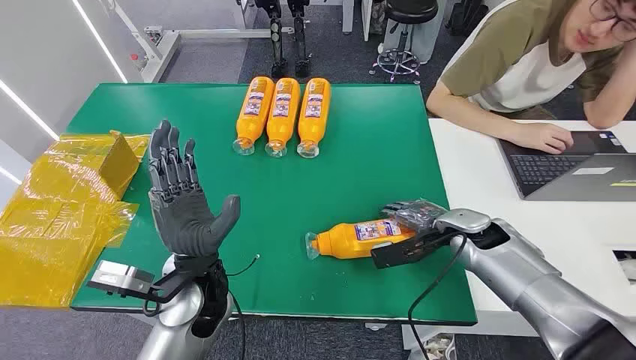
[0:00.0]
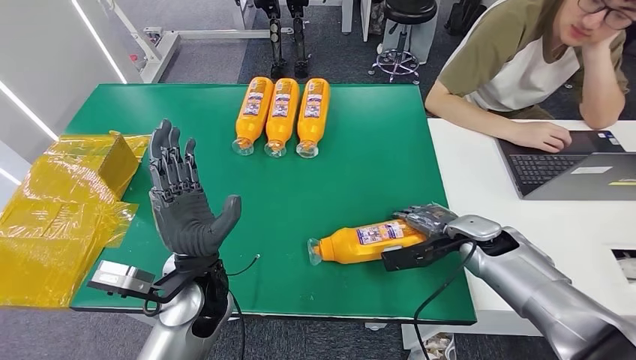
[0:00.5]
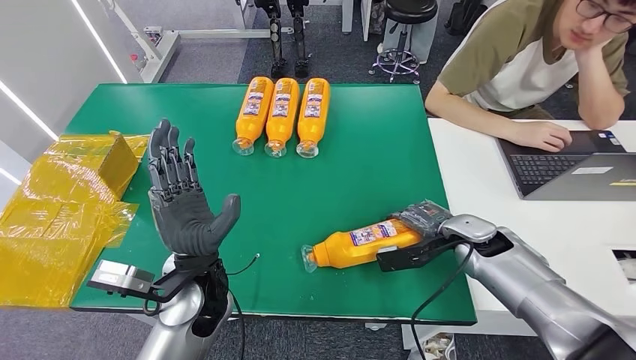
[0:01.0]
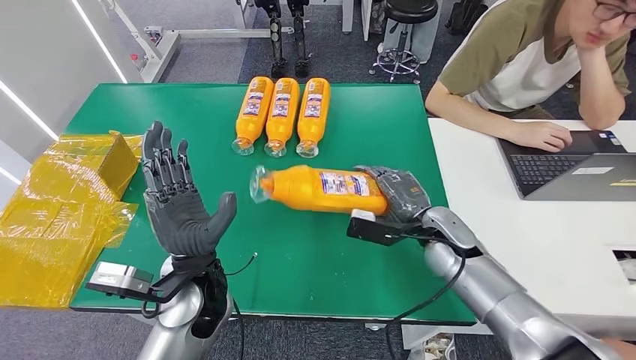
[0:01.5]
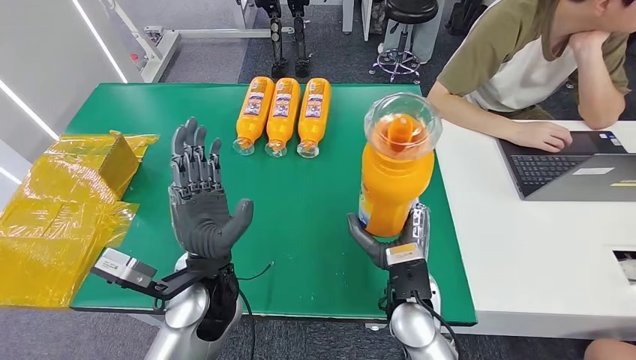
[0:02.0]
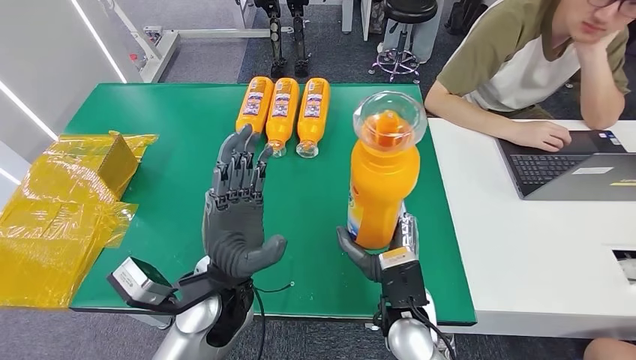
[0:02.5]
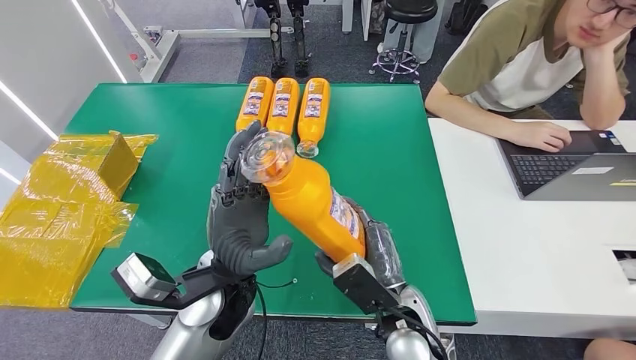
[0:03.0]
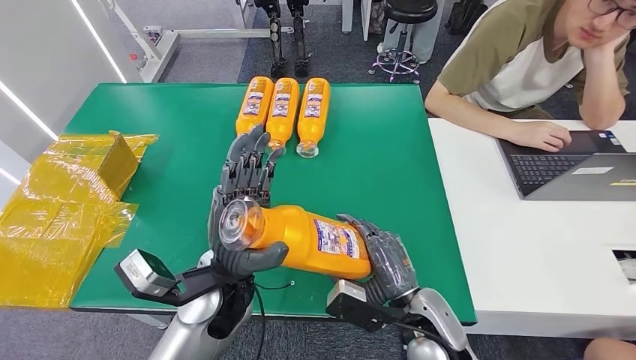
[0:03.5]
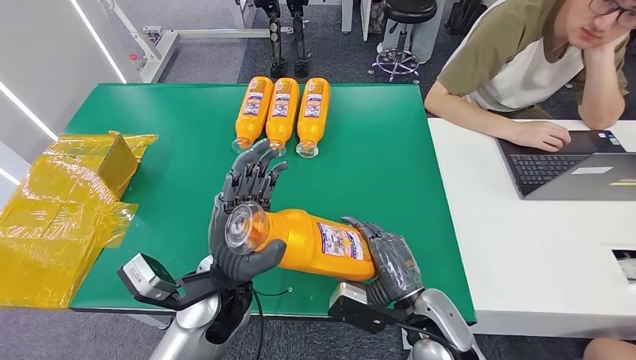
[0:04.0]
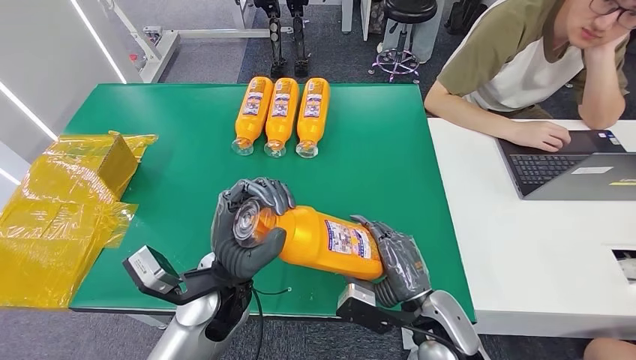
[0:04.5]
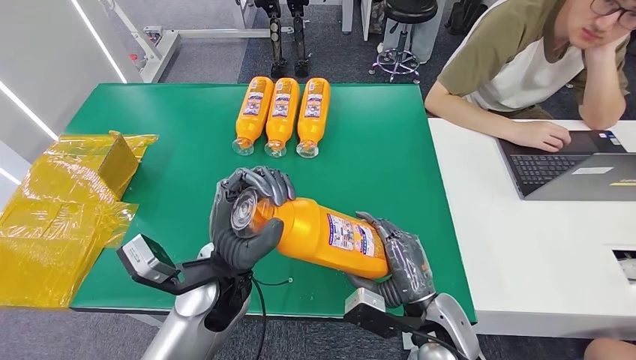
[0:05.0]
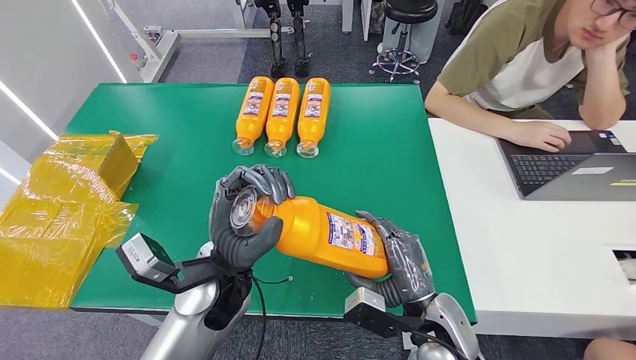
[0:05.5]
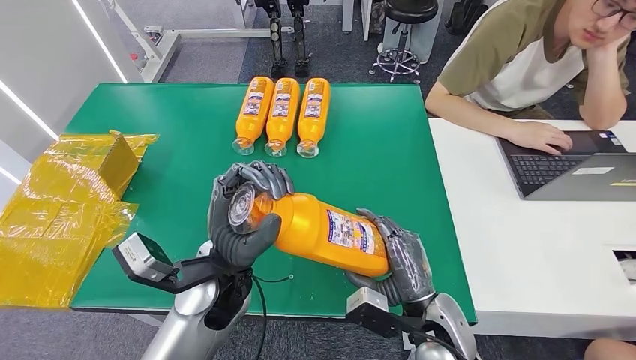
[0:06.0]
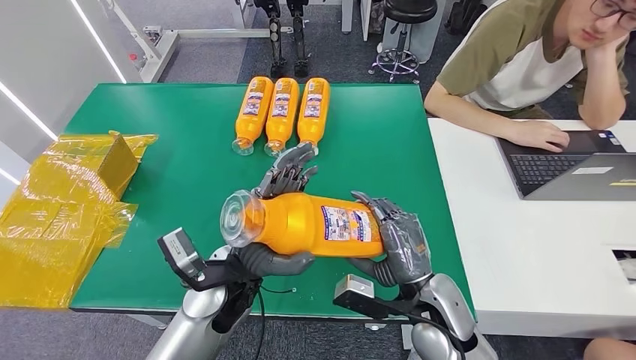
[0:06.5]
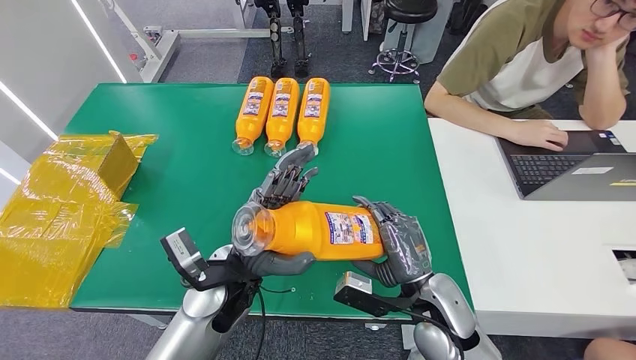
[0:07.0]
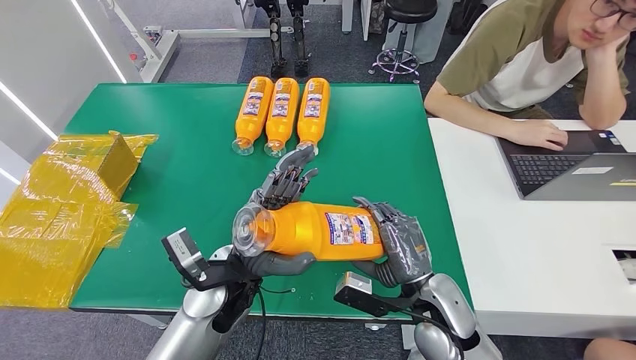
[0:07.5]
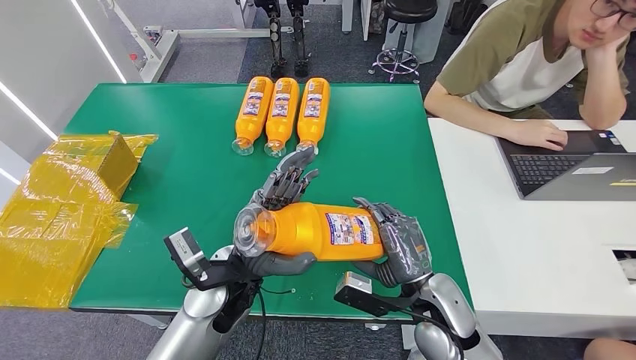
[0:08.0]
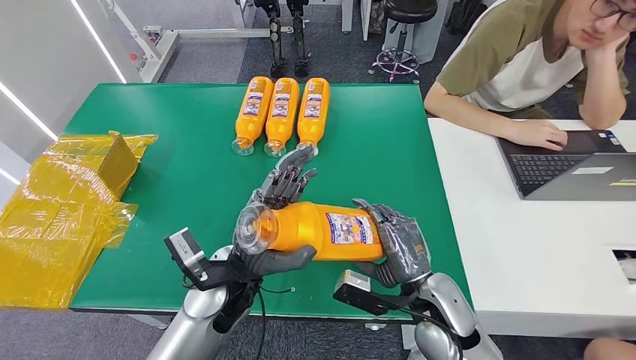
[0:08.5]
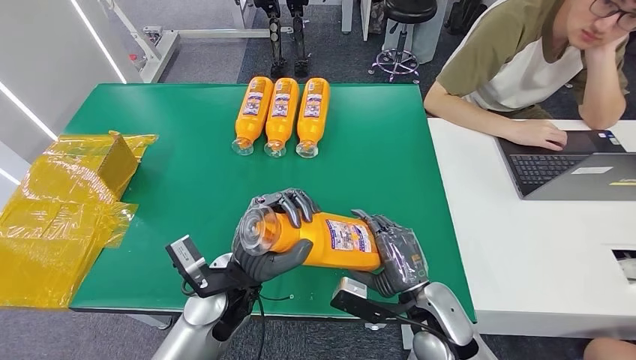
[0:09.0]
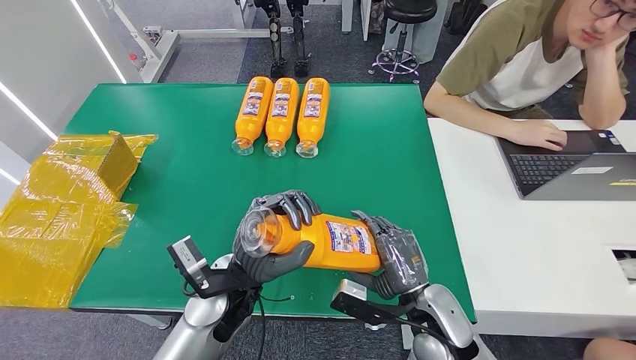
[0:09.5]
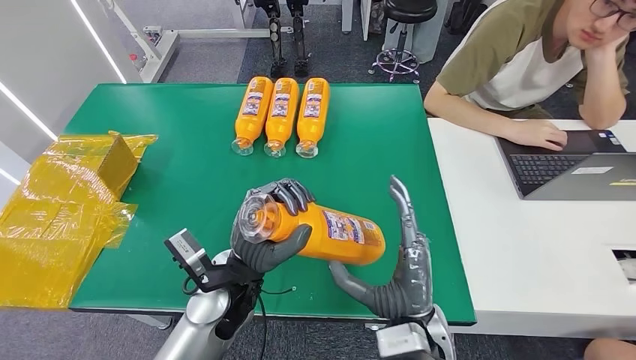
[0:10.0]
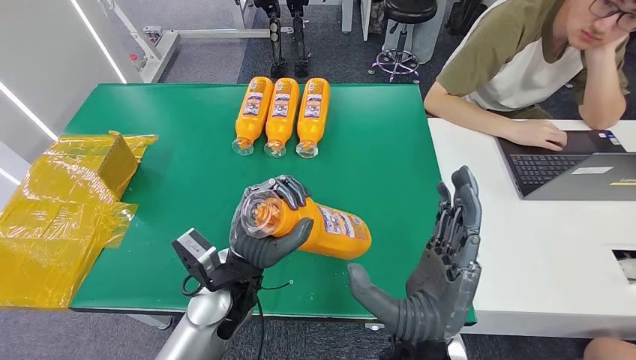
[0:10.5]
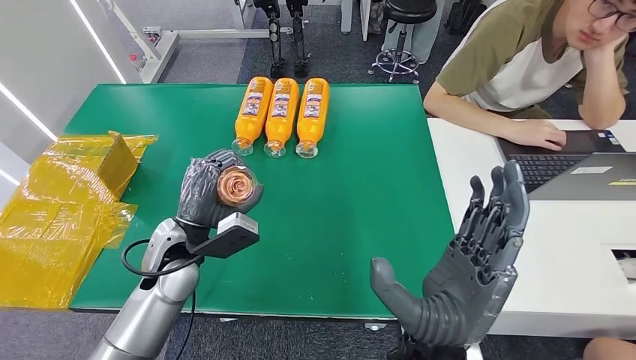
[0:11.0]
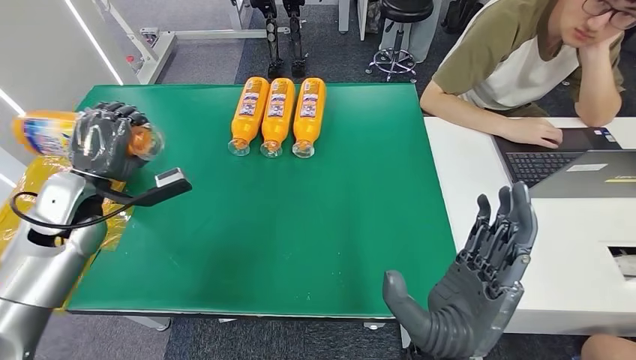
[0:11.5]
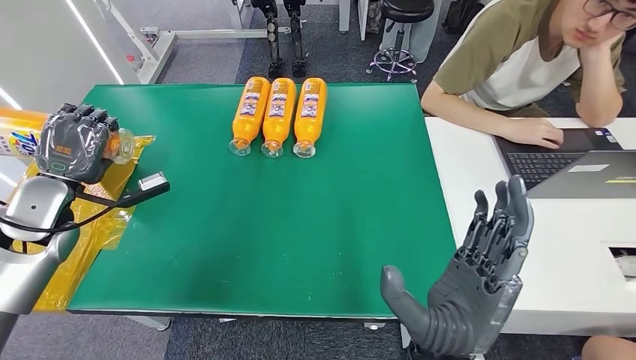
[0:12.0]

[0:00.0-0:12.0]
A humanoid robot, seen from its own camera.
Step, 0:00.0 to 0:04.5: Pick up the bottle from the table.
0:02.0 to 0:04.0: The right hand ends up roughly 5 cm from where it was.
0:04.0 to 0:08.0: The hands make only small movements.
0:08.0 to 0:10.0: The right hand shifts approximately 5 cm to the left and backward.

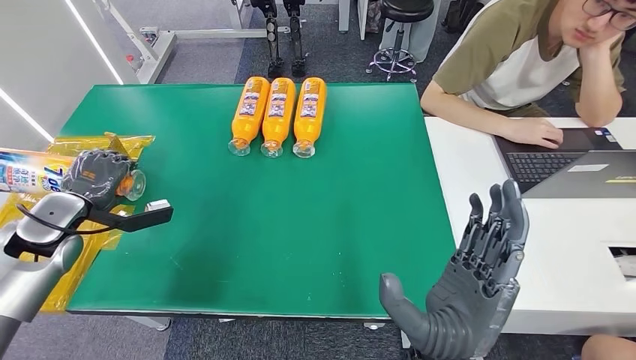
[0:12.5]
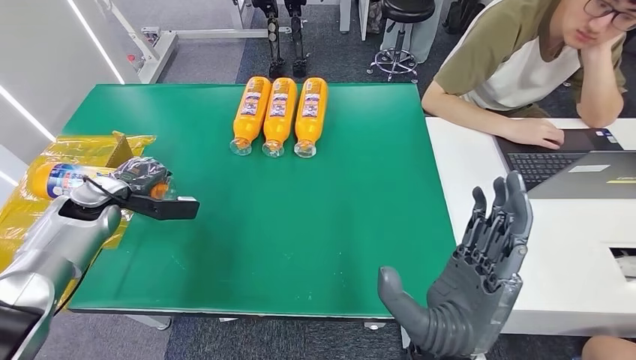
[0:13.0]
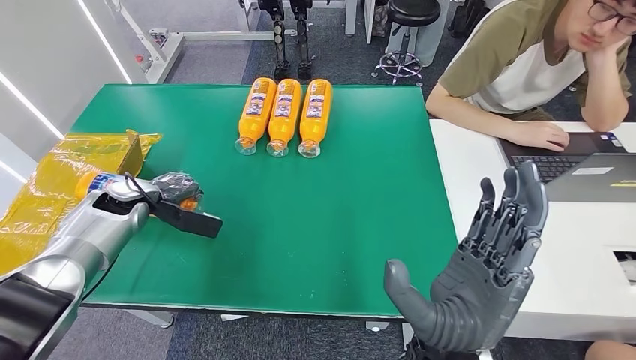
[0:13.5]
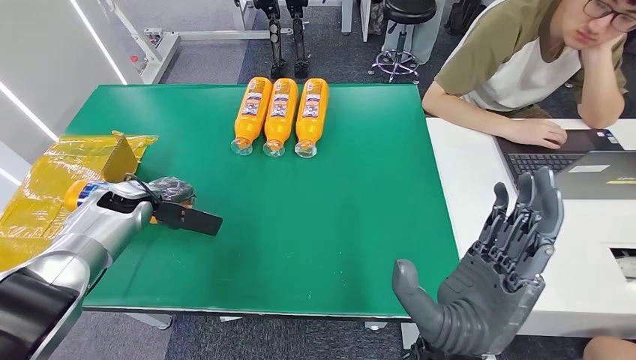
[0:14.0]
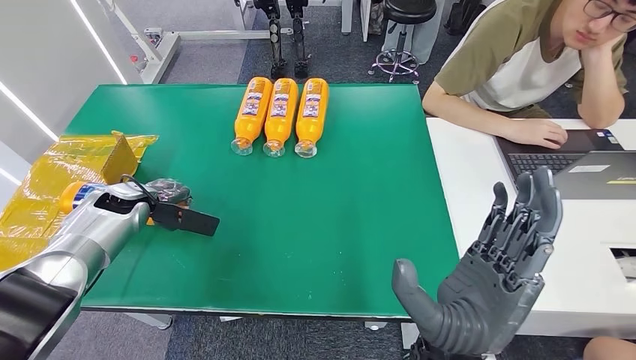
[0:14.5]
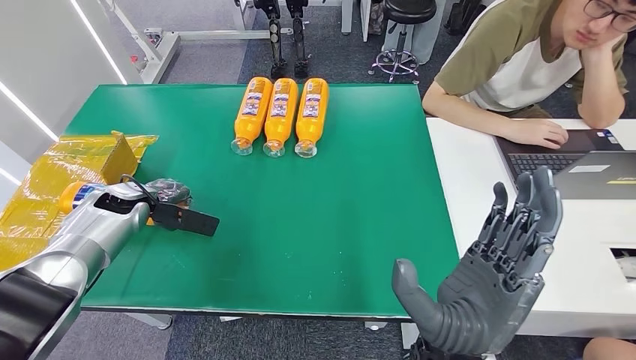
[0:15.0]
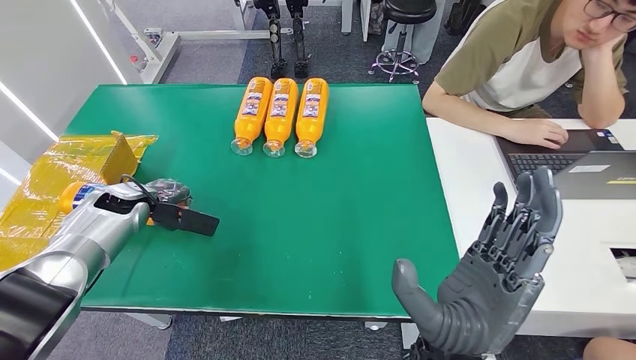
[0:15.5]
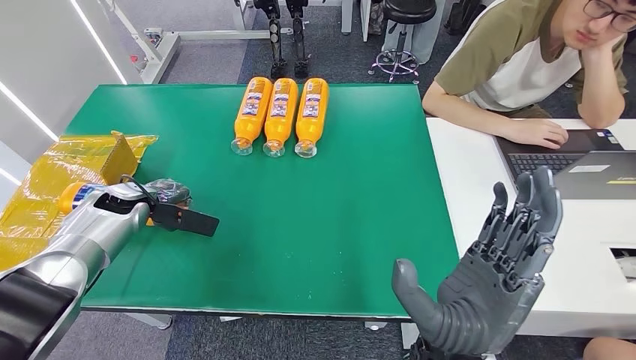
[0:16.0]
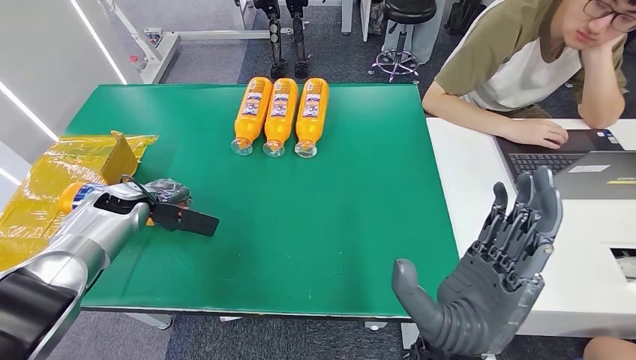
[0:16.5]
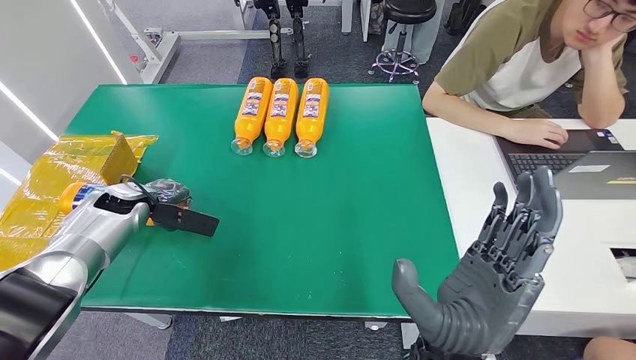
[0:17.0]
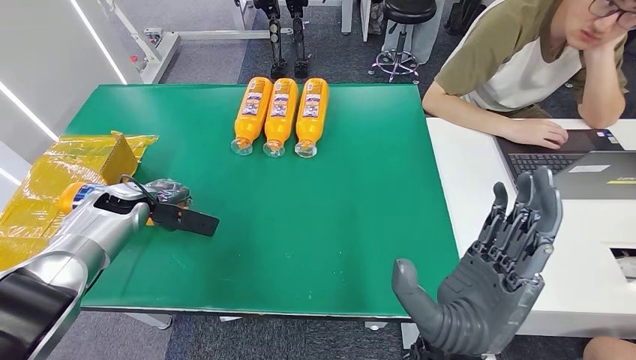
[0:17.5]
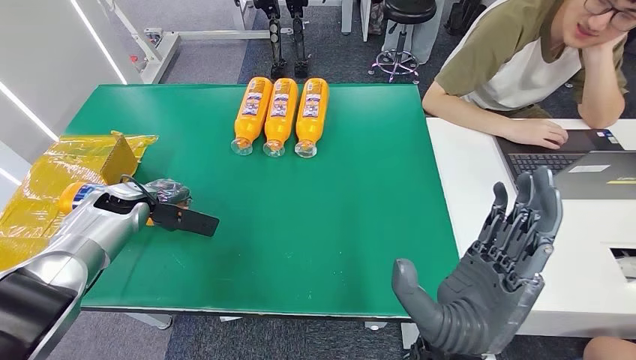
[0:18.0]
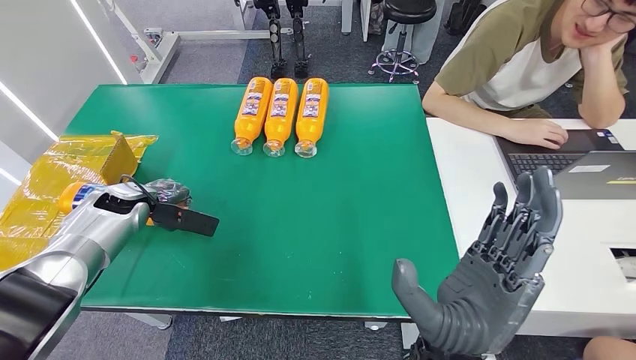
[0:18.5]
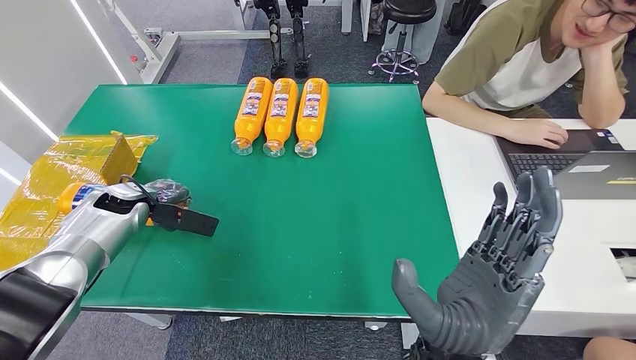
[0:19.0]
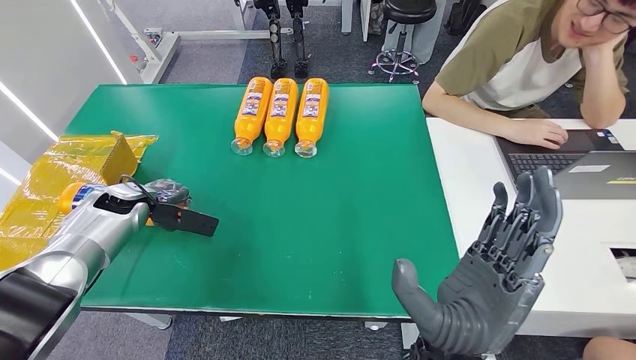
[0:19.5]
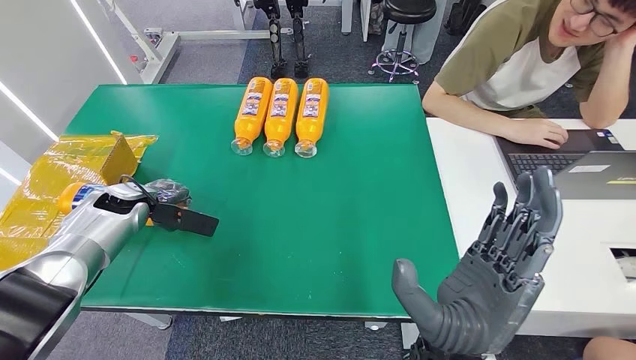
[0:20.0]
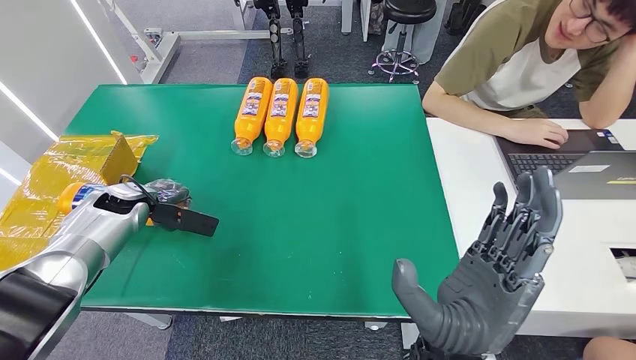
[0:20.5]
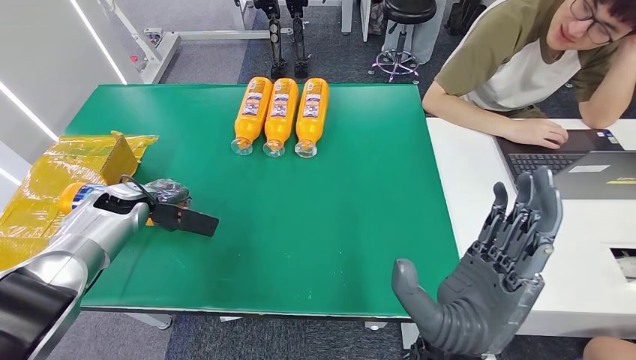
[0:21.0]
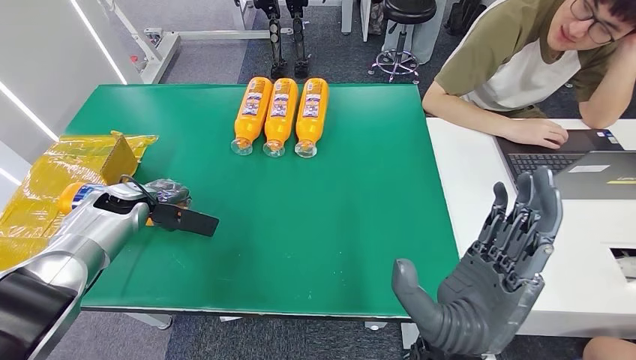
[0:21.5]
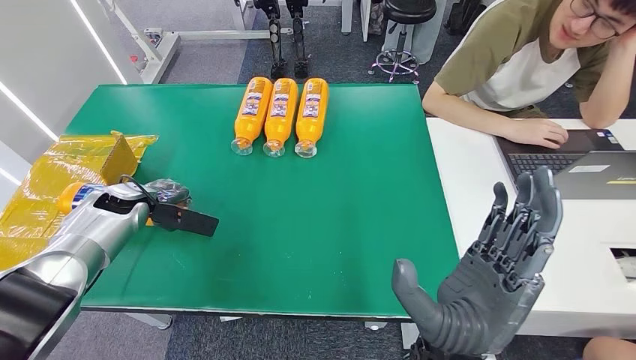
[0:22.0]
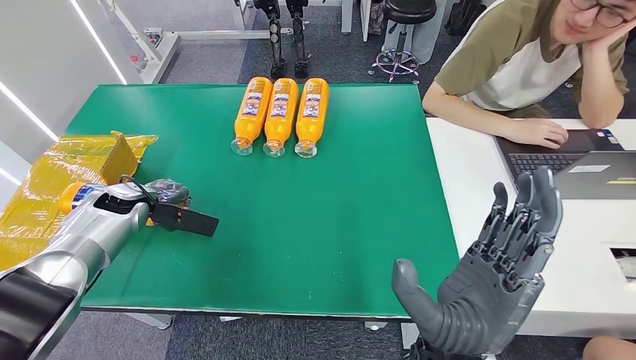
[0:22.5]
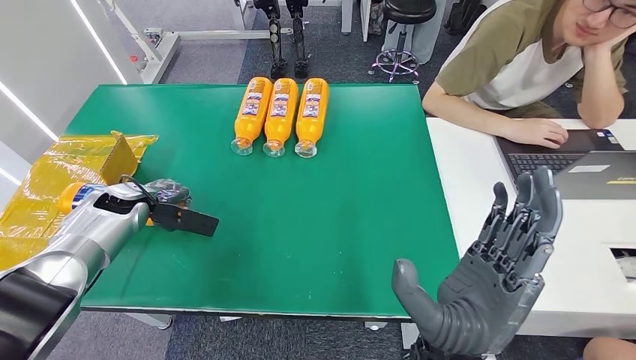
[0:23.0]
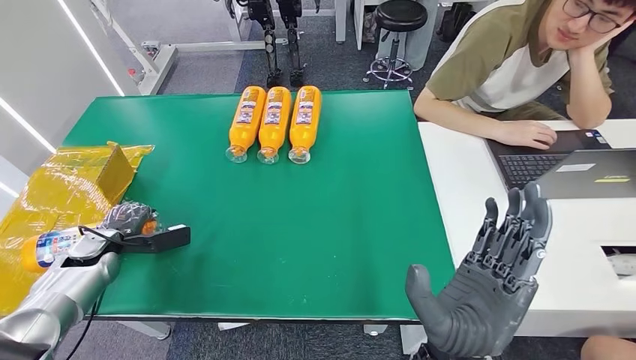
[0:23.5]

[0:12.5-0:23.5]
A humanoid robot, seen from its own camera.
0:14.5 to 0:21.5: Neither hand changes place.
